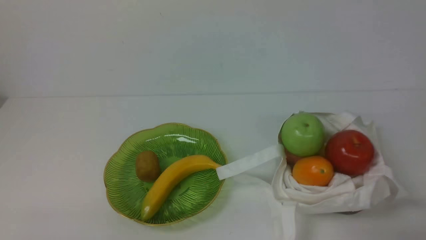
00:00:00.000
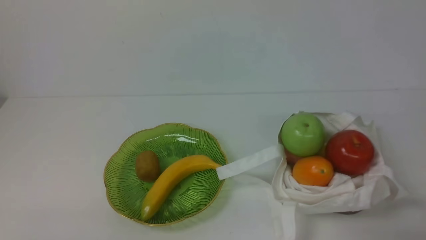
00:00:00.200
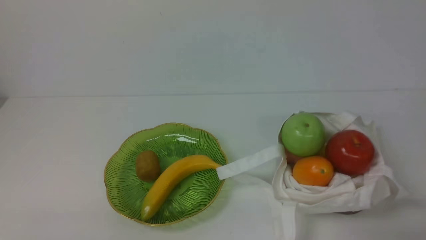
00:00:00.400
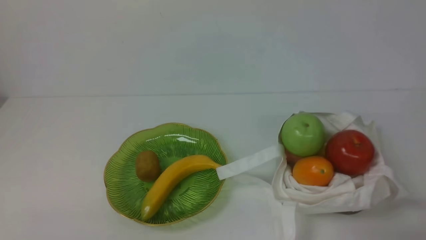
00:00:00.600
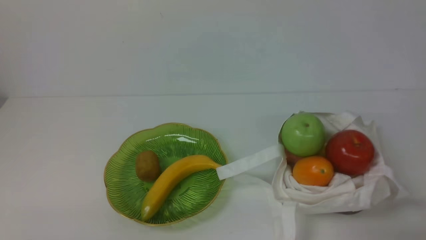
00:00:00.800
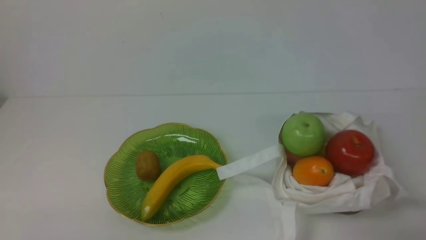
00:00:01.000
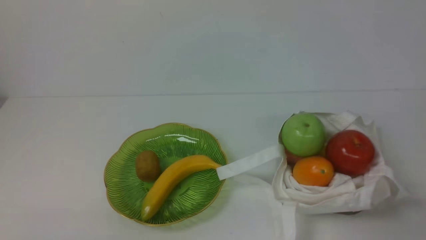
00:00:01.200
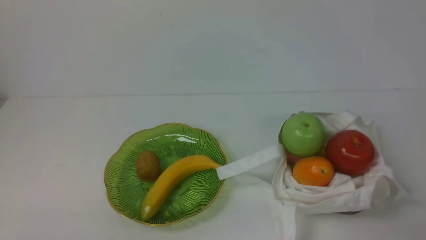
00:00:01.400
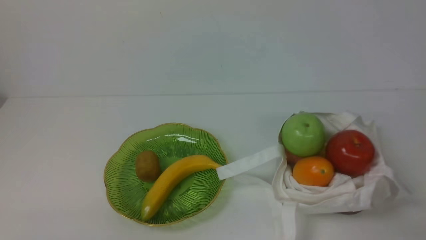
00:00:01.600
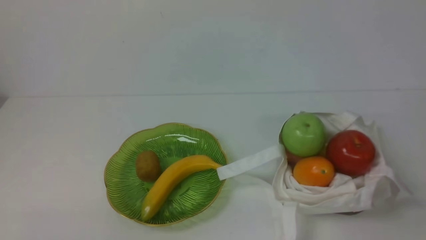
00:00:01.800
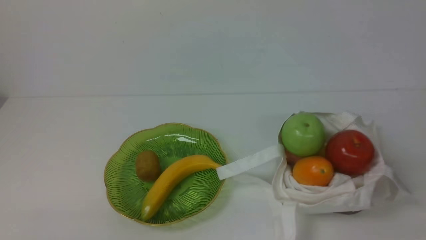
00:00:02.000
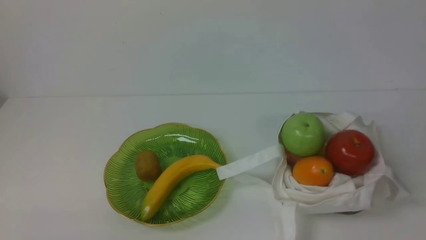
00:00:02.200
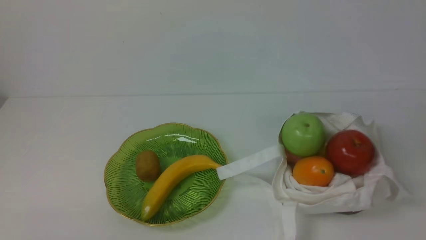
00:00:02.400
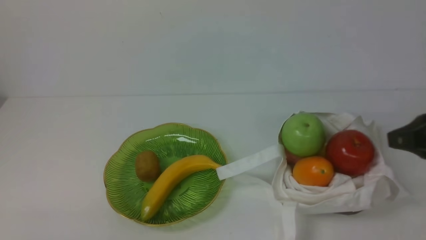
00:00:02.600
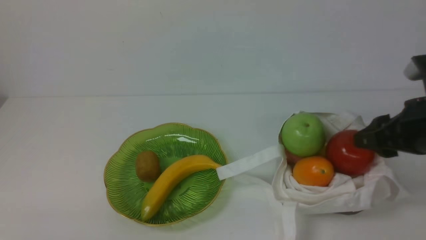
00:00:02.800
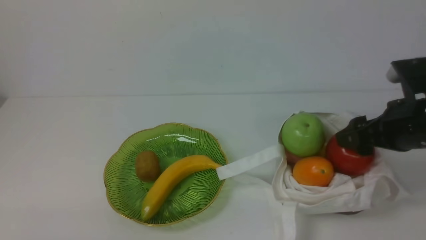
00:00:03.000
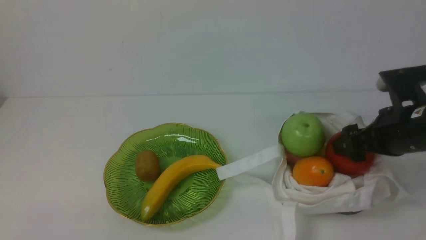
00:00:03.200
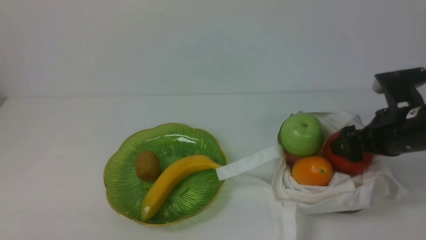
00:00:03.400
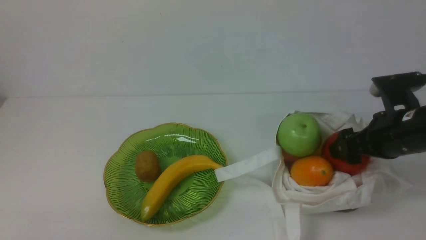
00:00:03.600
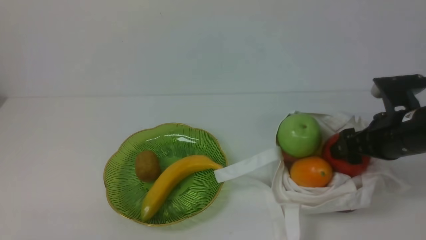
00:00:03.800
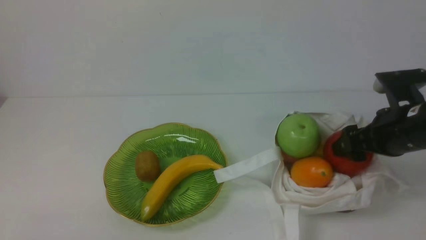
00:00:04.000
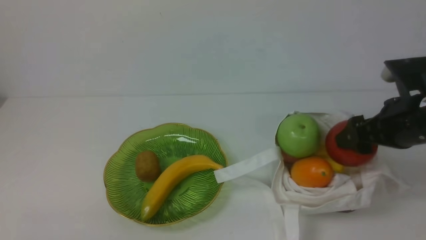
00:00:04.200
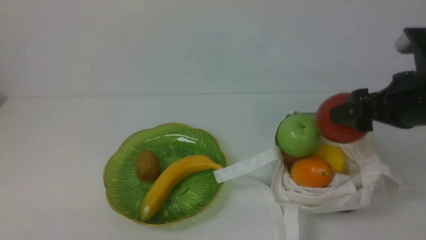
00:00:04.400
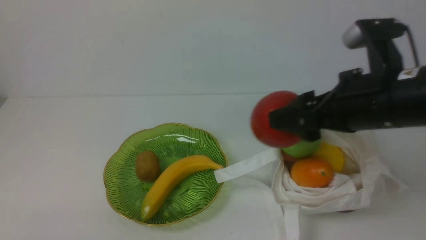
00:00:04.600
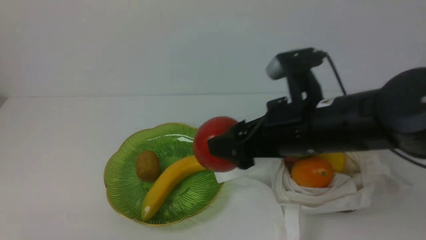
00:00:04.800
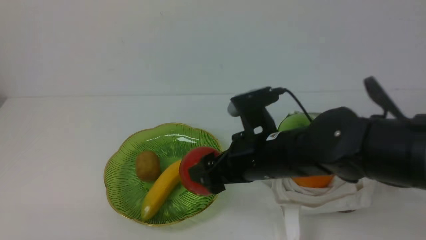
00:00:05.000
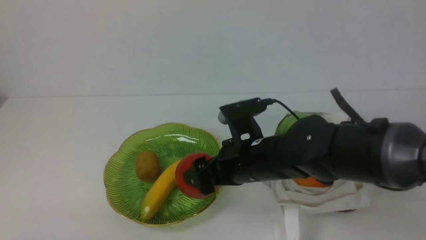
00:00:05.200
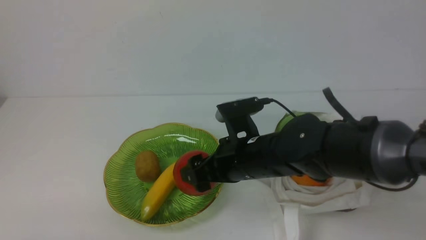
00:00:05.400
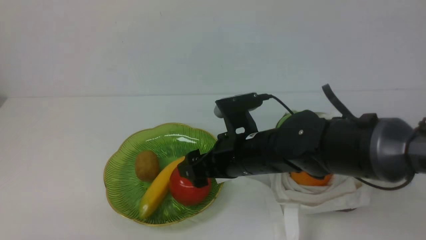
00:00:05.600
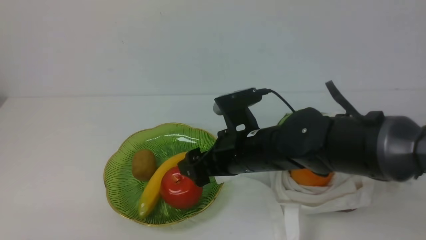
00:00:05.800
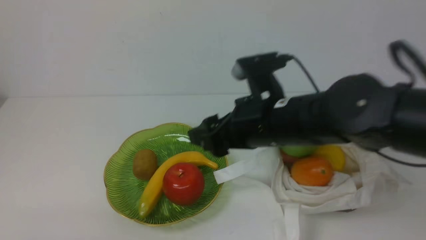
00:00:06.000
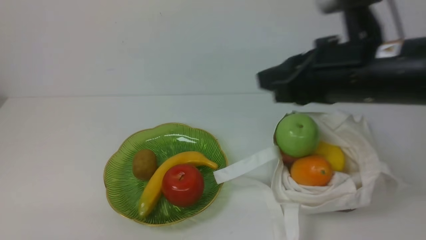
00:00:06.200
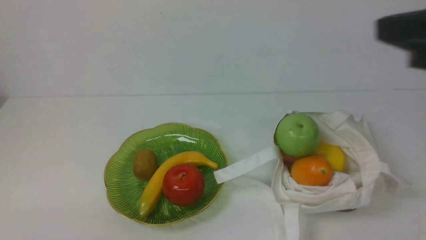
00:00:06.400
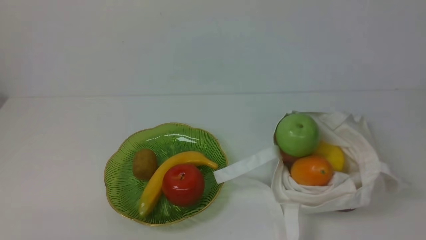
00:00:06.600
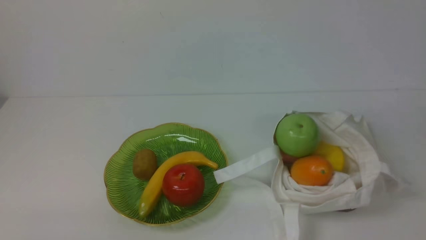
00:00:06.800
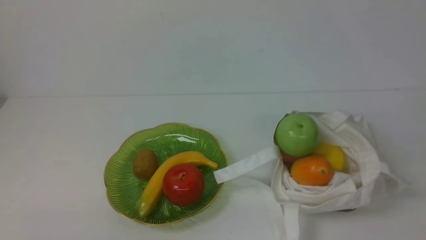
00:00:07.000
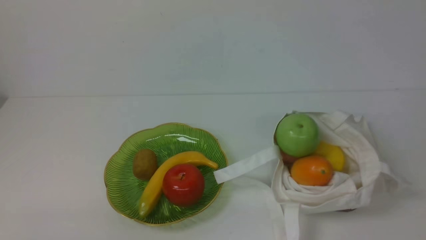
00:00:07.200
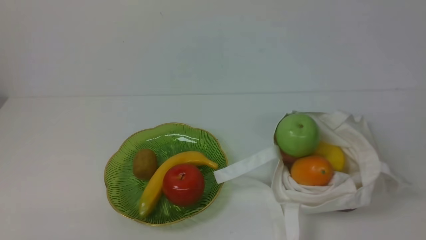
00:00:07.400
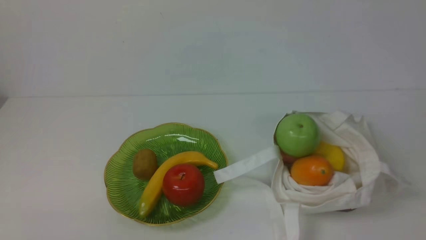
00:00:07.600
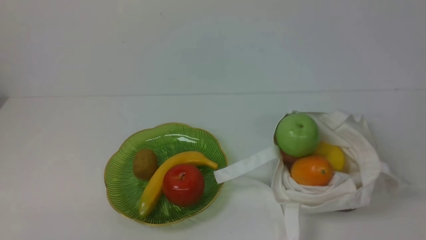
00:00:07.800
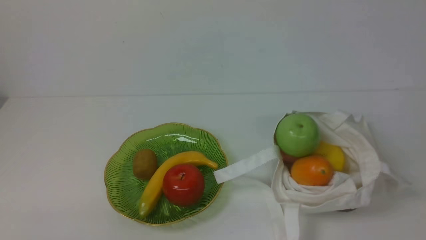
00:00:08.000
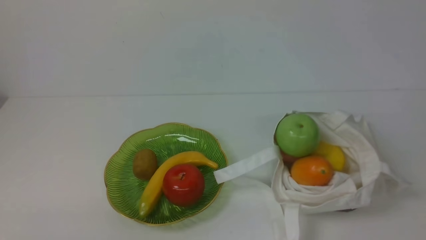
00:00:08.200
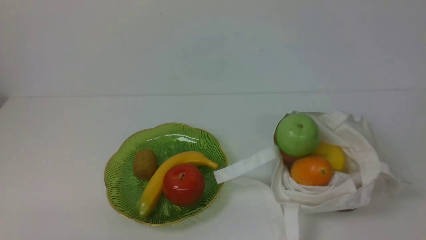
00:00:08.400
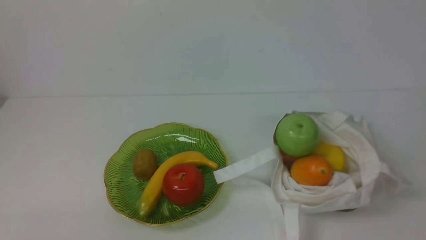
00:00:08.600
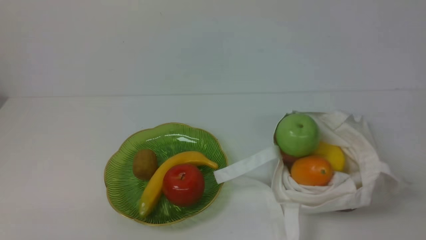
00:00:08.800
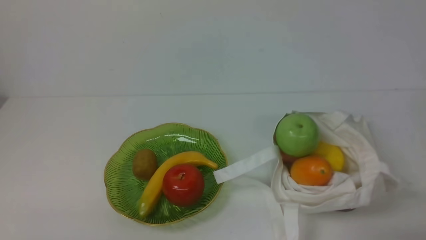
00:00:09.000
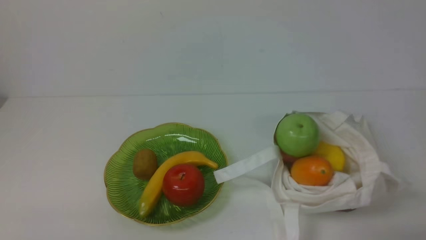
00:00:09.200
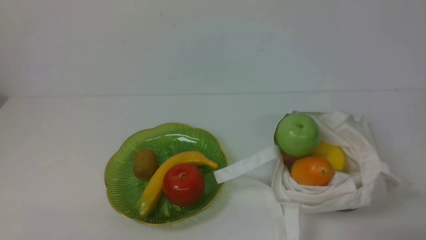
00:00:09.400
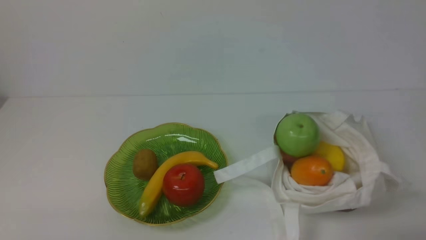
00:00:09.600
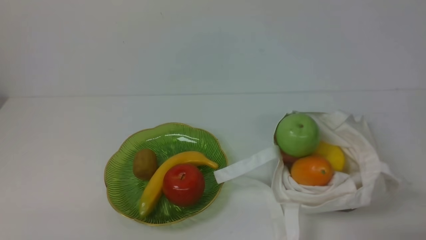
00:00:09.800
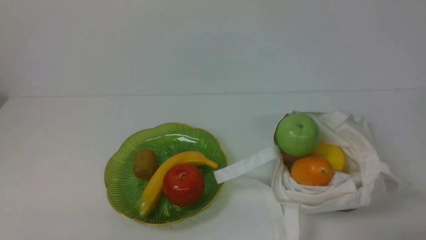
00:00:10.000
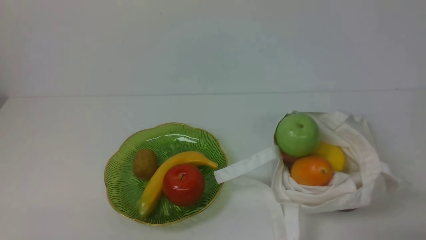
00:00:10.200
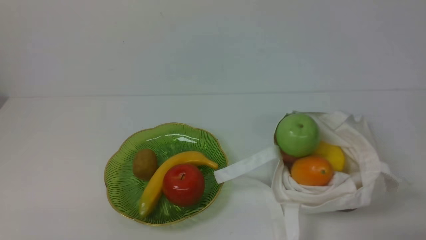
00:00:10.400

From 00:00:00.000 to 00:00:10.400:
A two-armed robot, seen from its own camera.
Step, from 00:00:00.000 to 00:00:04.200: use the right arm to grab an apple from the bag.
Step, from 00:00:04.400 to 00:00:05.800: use the right arm to put the apple into the empty plate on the left.
From 00:00:01.400 to 00:00:03.000: The right gripper travels forward by approximately 20 cm, and opens its fingers.
From 00:00:03.000 to 00:00:04.400: The right gripper moves roughly 5 cm.
From 00:00:04.400 to 00:00:06.000: The right gripper moves to the left, roughly 15 cm.
From 00:00:06.000 to 00:00:07.400: The right gripper shifts some 35 cm backward and to the right, and closes.
From 00:00:09.000 to 00:00:10.400: Both grippers stay about where they are.
